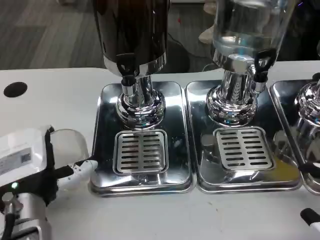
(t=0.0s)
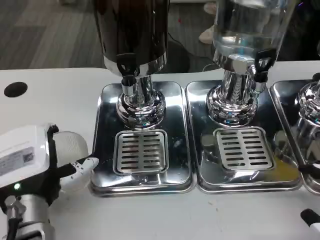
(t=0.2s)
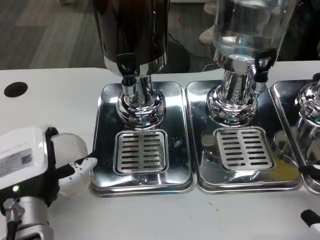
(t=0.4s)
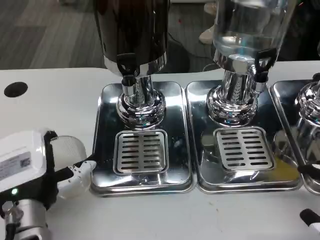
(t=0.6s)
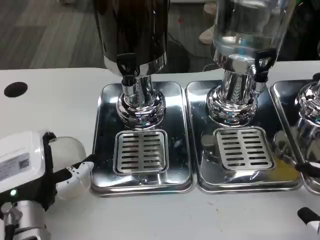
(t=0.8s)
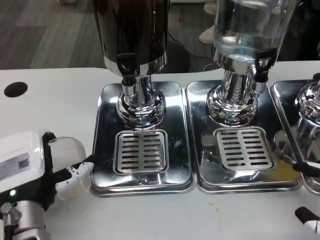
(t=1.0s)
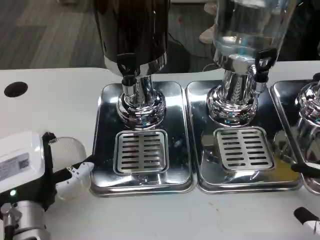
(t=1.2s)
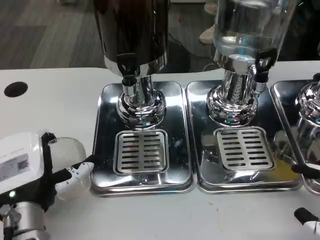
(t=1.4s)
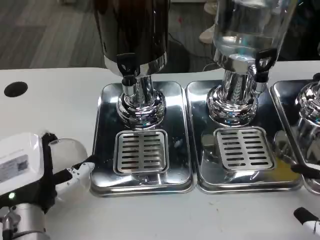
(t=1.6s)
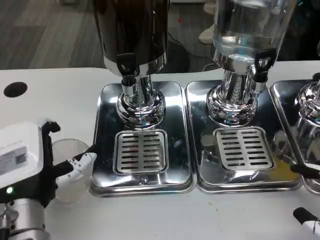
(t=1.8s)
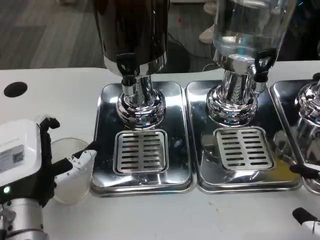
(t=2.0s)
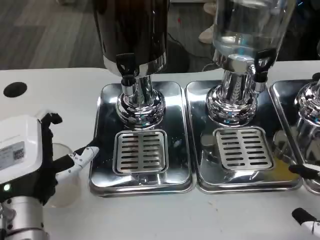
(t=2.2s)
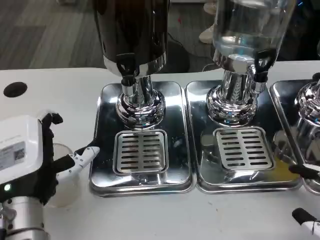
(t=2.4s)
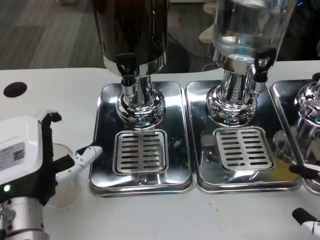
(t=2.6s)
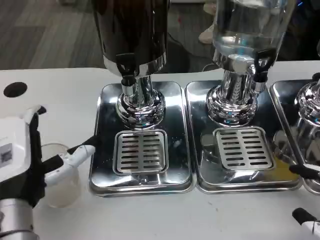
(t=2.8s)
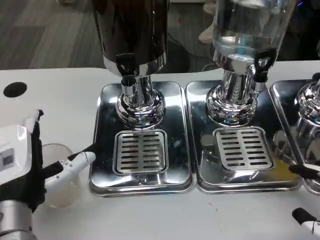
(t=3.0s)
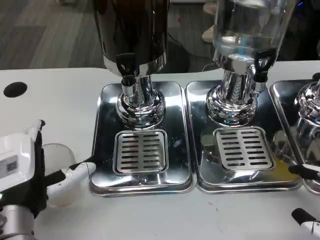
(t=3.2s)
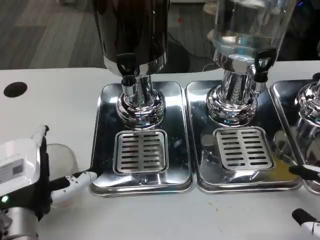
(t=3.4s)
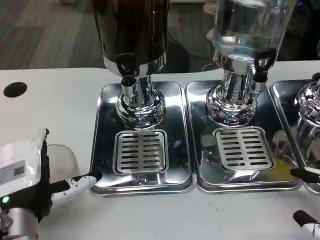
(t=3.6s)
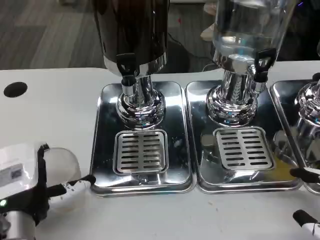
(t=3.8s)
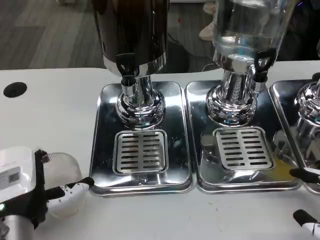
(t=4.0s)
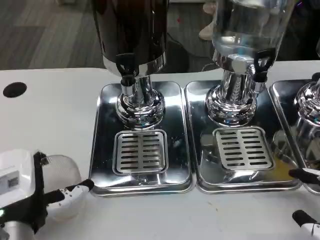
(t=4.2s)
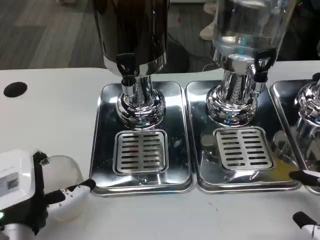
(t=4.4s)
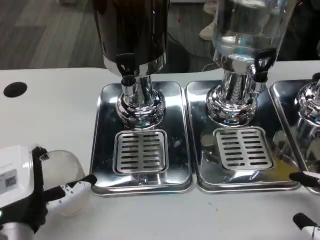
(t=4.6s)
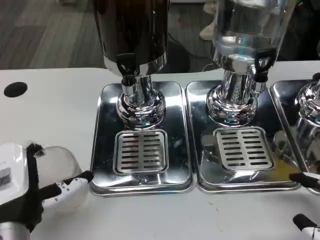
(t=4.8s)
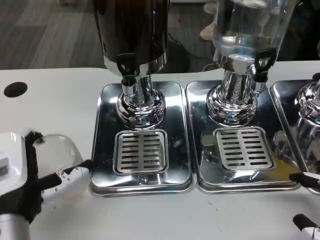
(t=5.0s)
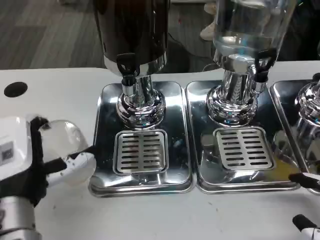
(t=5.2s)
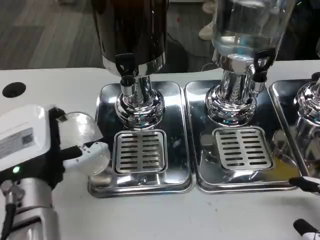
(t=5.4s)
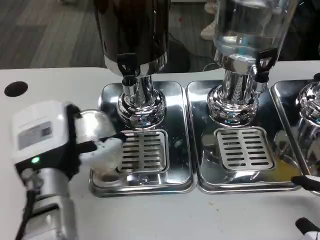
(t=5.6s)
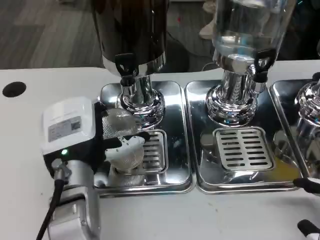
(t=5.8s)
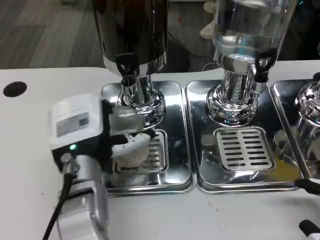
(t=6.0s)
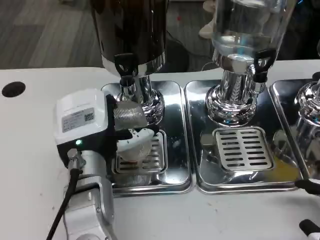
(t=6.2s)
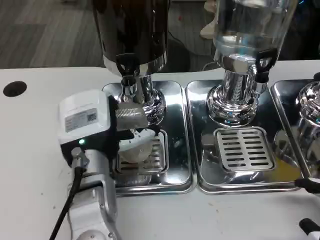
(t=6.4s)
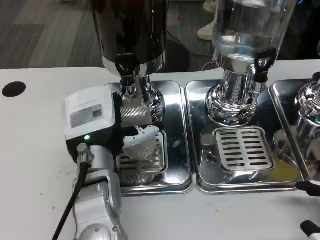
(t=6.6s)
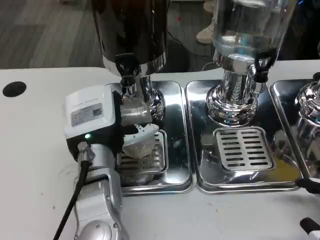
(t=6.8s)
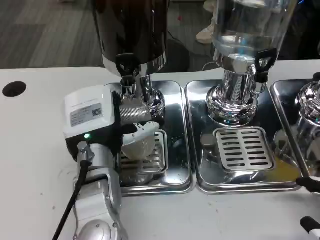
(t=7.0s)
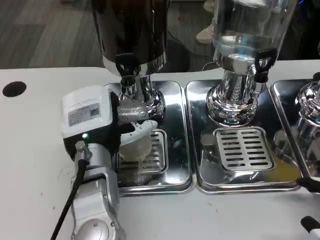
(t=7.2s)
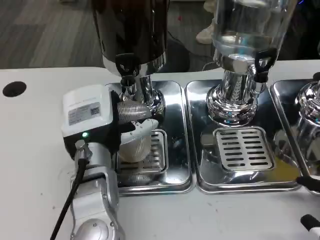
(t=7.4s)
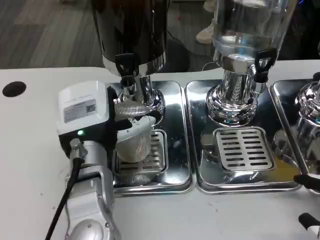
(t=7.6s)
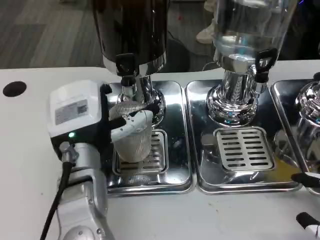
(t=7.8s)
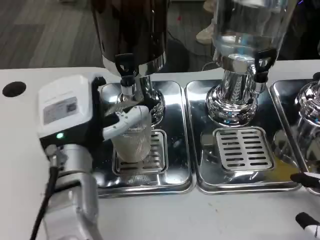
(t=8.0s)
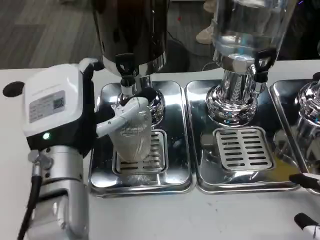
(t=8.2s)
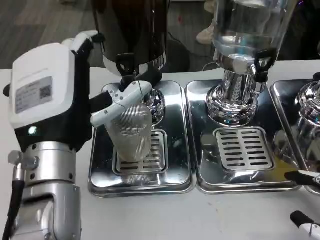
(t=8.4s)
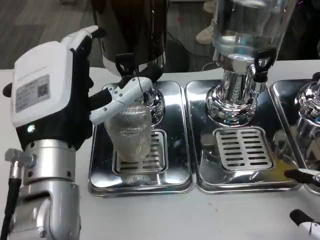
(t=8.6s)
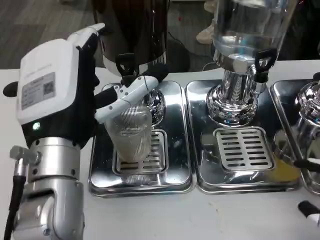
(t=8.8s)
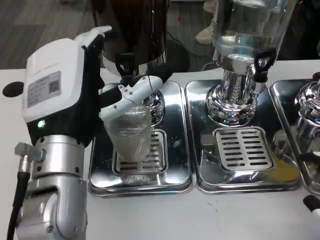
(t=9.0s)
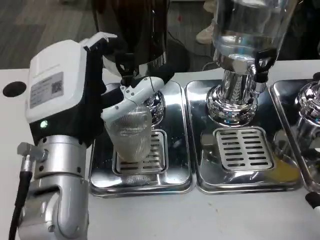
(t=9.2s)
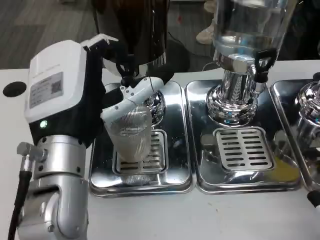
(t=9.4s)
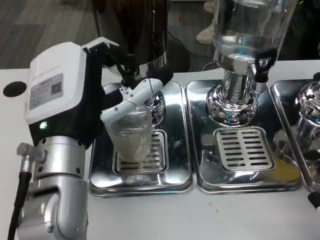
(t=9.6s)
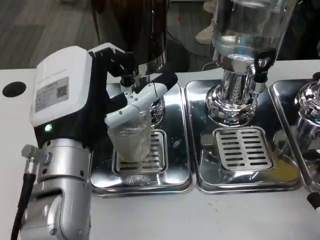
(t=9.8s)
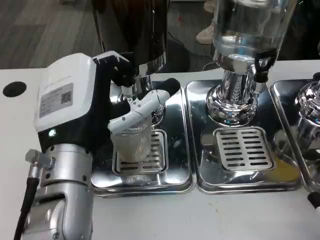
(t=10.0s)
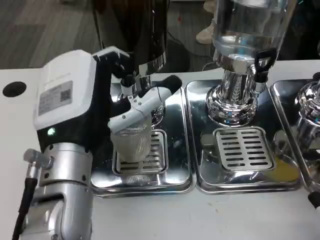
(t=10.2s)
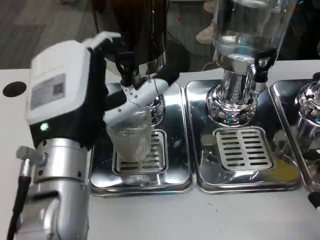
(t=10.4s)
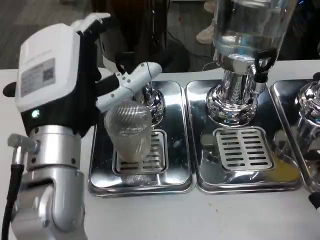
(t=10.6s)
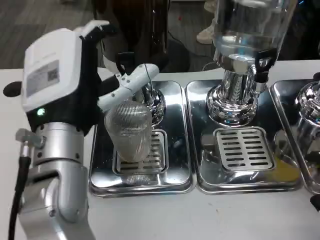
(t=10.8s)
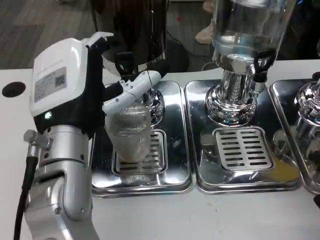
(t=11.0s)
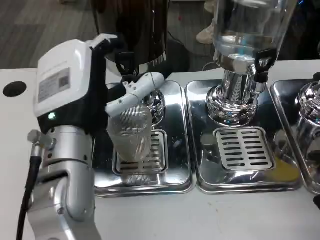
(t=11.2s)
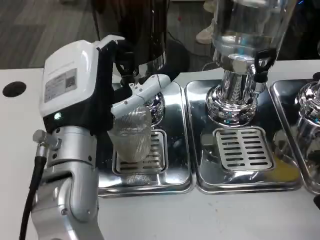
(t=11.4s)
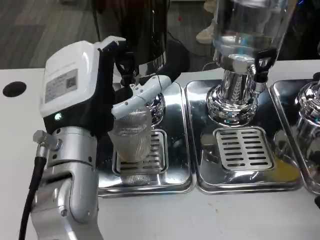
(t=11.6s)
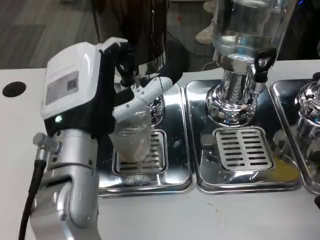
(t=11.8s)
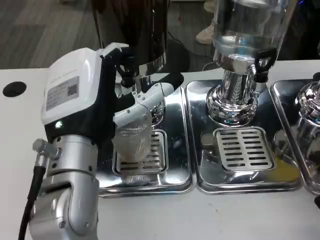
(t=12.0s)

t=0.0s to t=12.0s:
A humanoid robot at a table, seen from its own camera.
Task of the whole recording: Grasp the cup under the faucet to collect the drink, then remove the cup.
t=0.0s to t=4.4s: There are only small adjustments of the hands.
t=4.4s to t=6.0s: The left hand travels forward and to the right by some 10 cm.
t=6.0s to t=7.6s: There are only small adjustments of the hands.
t=7.6s to t=9.0s: The left hand goes roughly 10 cm upward and backward.
t=9.0s to t=10.4s: The two hands keep their place.
t=10.4s to t=12.0s: The hands make only small movements.

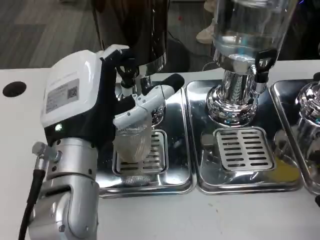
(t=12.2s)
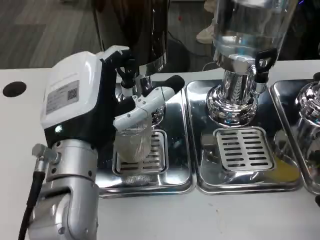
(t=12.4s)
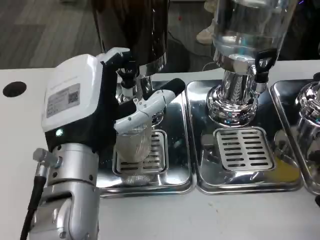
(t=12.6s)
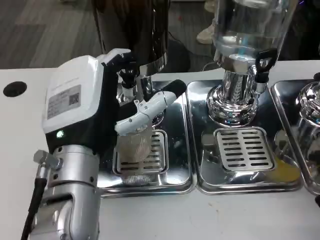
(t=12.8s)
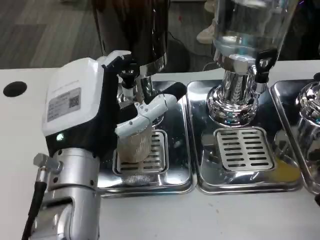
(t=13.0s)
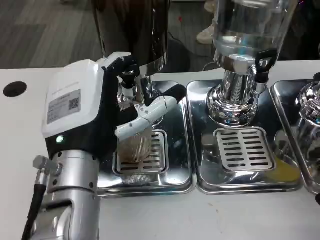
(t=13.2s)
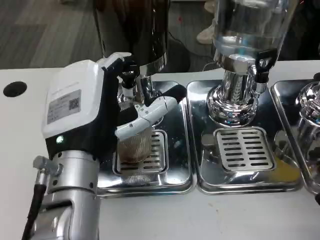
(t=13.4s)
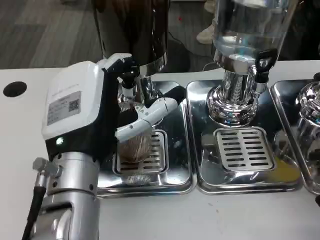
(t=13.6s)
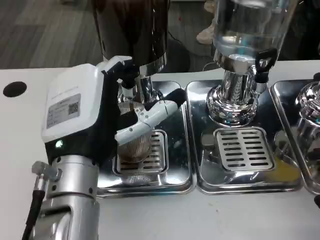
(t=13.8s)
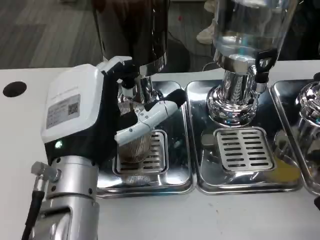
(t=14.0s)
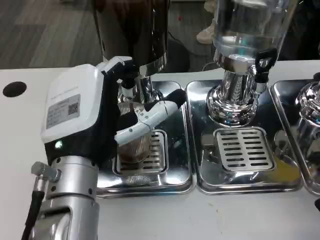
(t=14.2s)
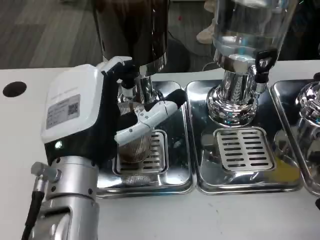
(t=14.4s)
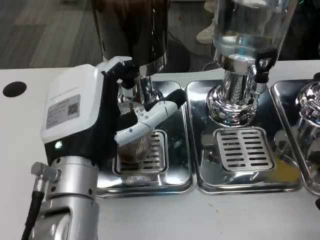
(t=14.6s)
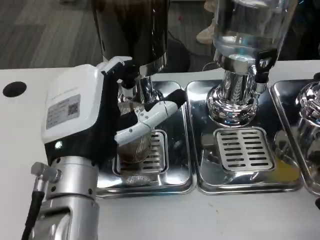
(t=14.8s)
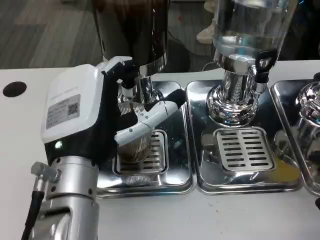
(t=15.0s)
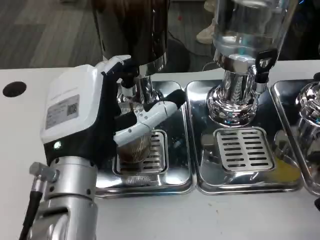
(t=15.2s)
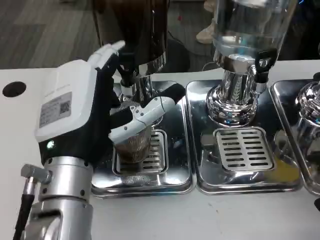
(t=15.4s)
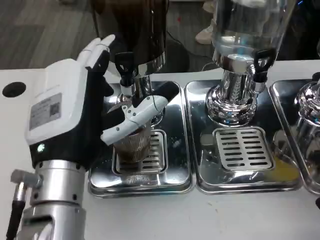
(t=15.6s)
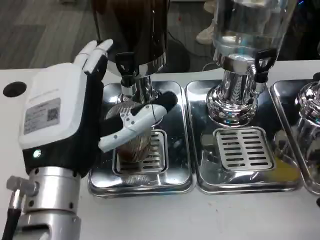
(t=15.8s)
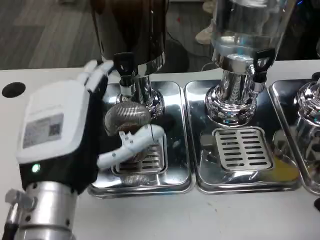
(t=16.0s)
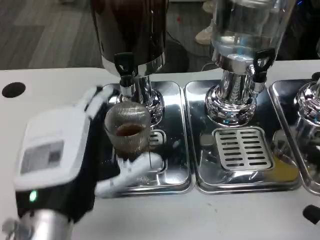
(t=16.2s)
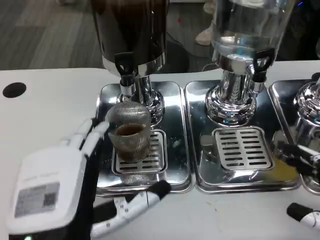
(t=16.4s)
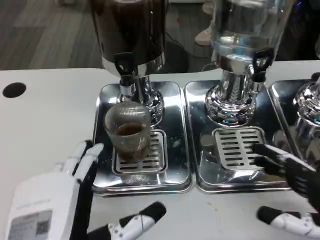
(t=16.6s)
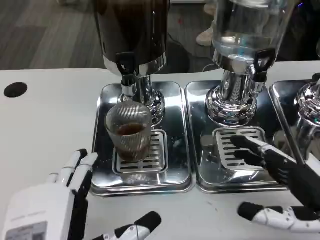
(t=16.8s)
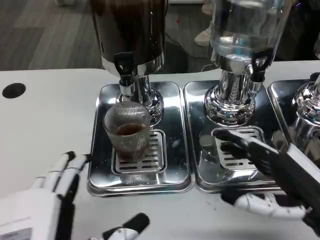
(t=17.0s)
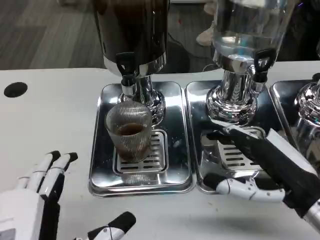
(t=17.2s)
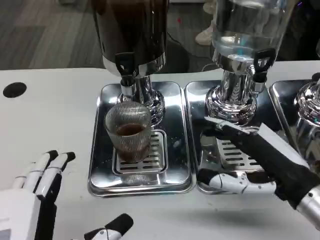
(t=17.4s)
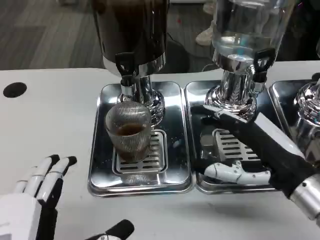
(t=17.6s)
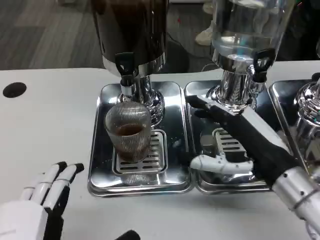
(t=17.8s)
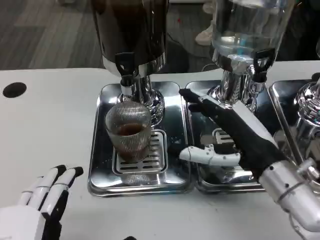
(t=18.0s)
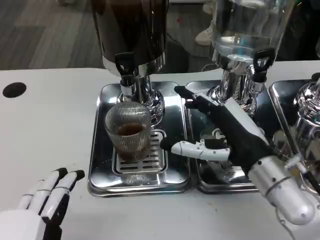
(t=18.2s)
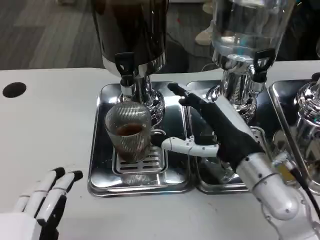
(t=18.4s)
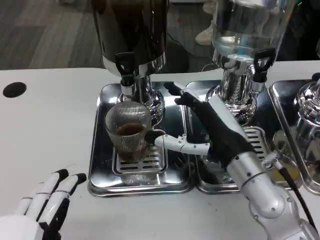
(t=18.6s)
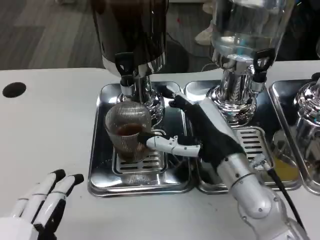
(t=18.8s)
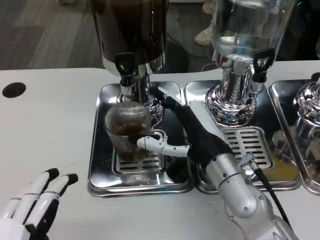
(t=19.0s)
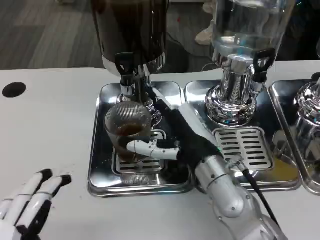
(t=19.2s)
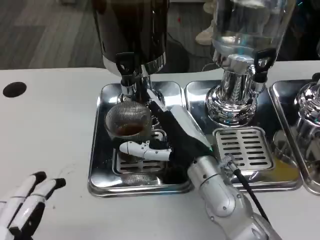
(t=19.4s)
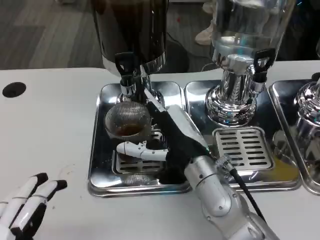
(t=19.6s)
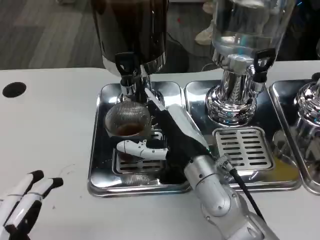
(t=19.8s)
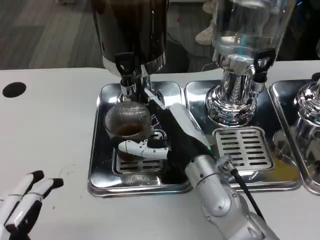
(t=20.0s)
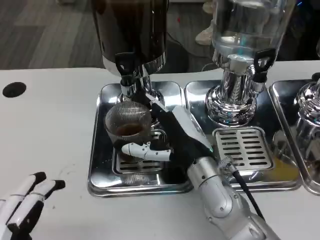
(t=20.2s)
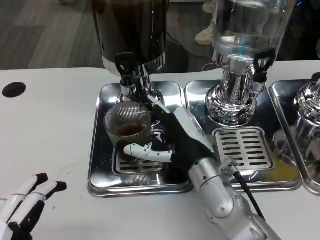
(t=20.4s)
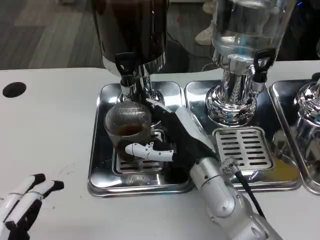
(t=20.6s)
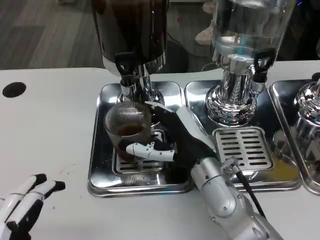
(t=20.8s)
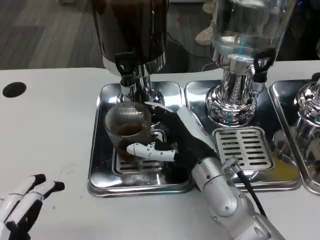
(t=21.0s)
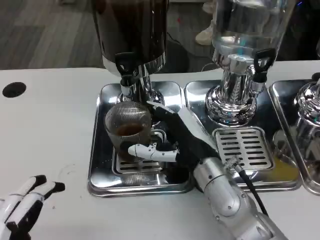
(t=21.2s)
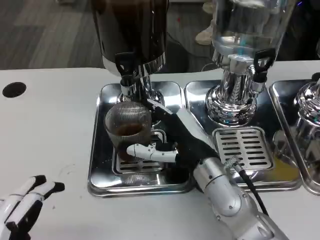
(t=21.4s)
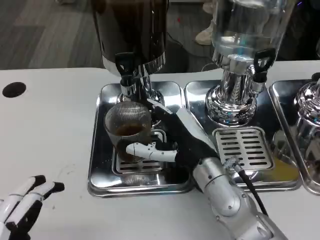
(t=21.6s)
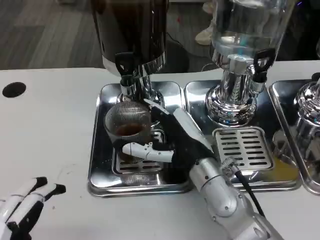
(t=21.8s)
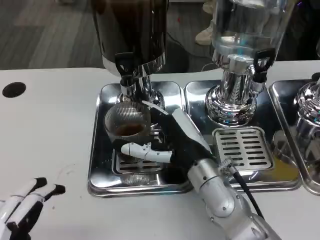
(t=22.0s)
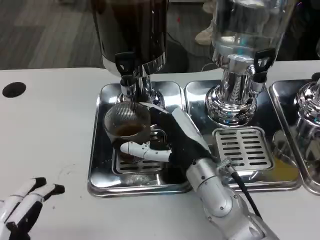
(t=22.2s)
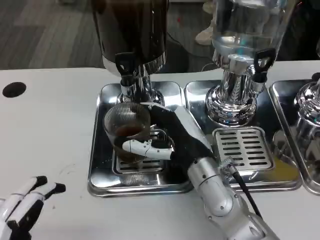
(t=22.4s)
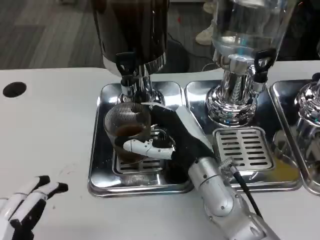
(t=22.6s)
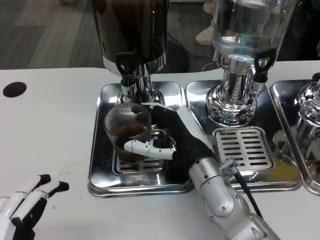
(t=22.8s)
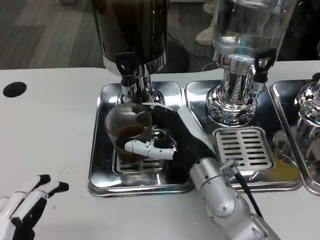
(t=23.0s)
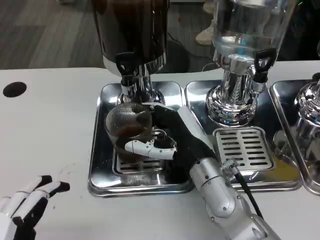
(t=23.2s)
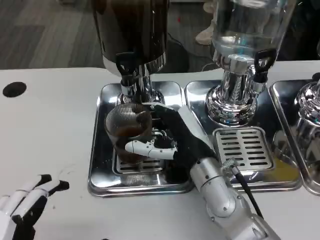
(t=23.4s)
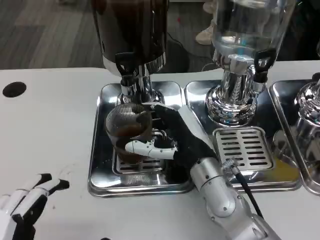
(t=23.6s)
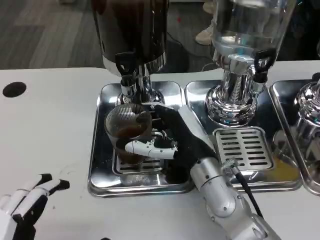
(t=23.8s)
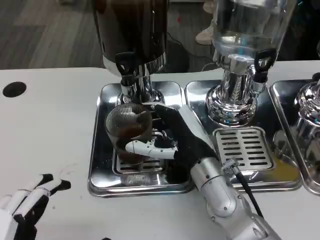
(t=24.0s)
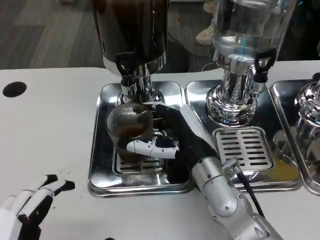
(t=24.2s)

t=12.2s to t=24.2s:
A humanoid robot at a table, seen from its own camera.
Task of the whole recording: Grasp the cup under the faucet to collect the drink, then remove the cup.
t=12.2s to t=13.8s: The hands make only small movements.
t=13.8s to t=15.2s: Both hands stay put.
t=15.2s to t=16.6s: The right hand moves roughly 5 cm; the left hand heads backward, covering roughly 10 cm.
t=16.6s to t=18.2s: The right hand goes roughly 15 cm to the left and forward, while the left hand ends up approximately 5 cm from where it was.
t=18.2s to t=19.8s: The right hand heads to the left, covering some 10 cm.
t=19.8s to t=21.2s: The hands stay close to where they were, moving slightly.
t=21.2s to t=22.6s: The two hands keep their place.
t=22.6s to t=24.2s: Both hands stay about where they are.
